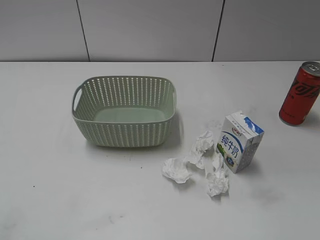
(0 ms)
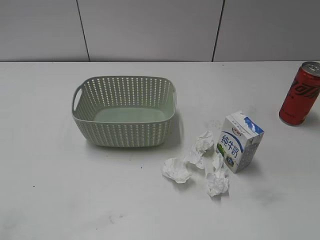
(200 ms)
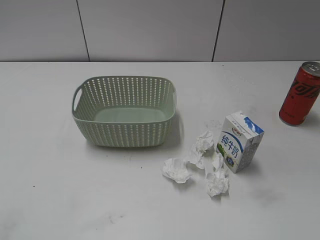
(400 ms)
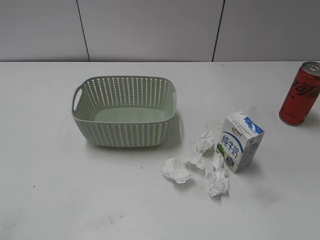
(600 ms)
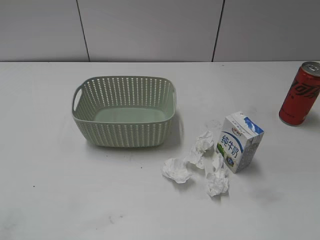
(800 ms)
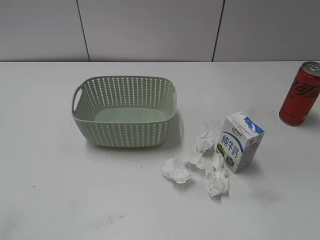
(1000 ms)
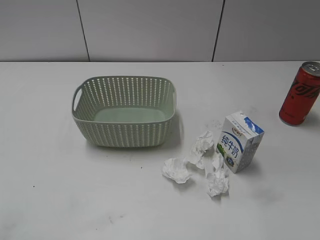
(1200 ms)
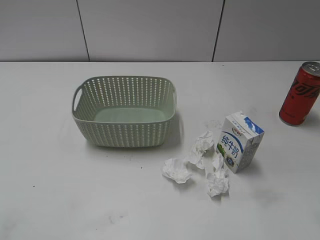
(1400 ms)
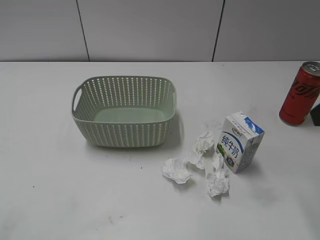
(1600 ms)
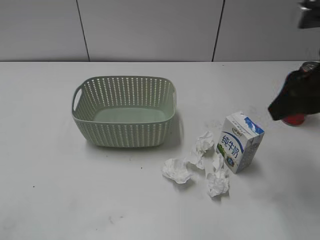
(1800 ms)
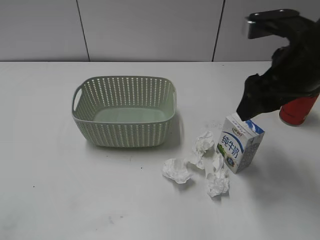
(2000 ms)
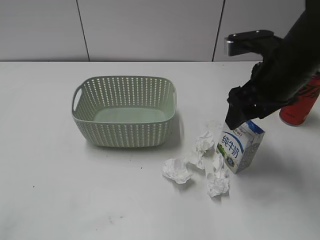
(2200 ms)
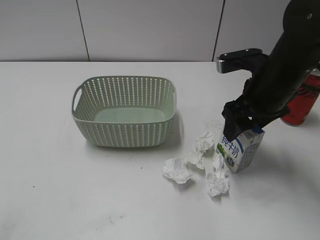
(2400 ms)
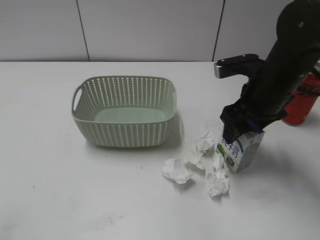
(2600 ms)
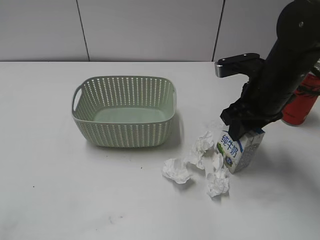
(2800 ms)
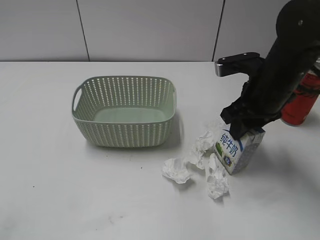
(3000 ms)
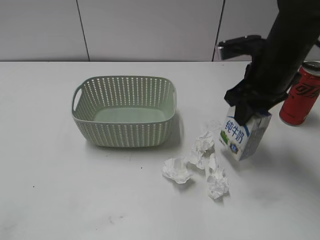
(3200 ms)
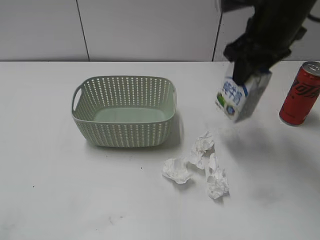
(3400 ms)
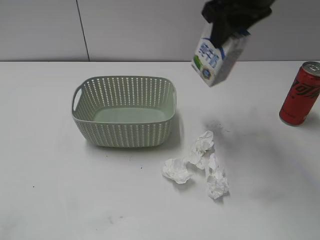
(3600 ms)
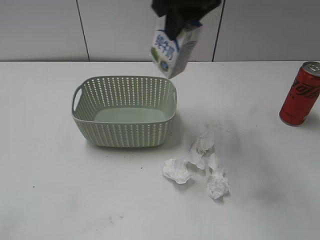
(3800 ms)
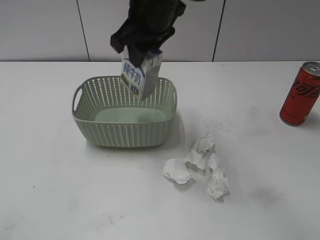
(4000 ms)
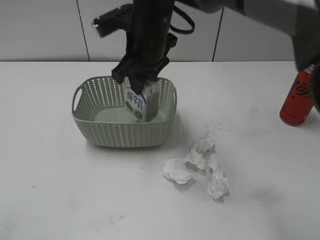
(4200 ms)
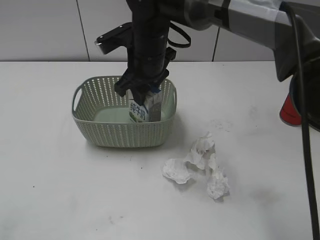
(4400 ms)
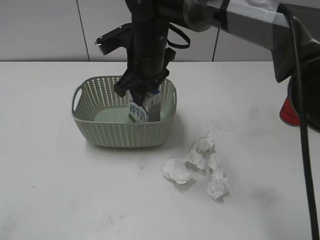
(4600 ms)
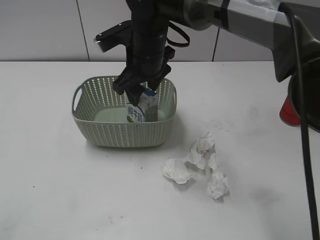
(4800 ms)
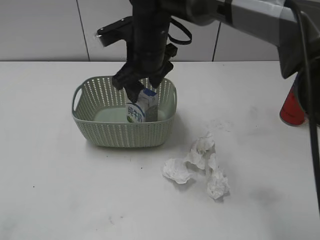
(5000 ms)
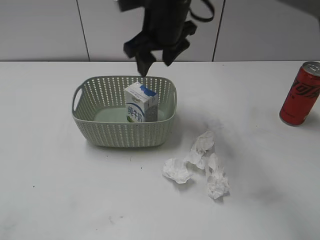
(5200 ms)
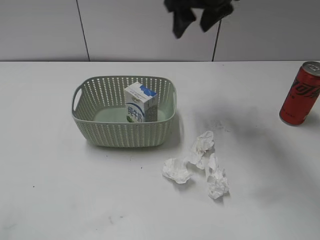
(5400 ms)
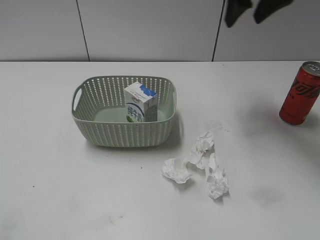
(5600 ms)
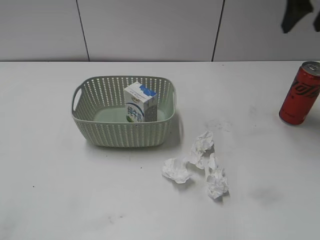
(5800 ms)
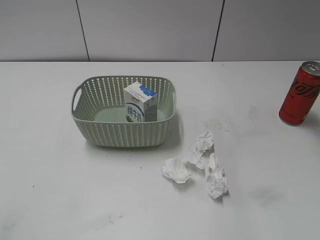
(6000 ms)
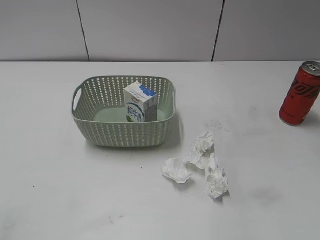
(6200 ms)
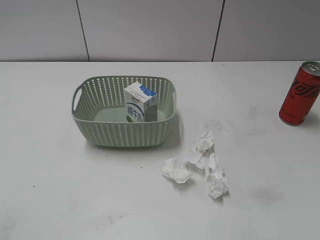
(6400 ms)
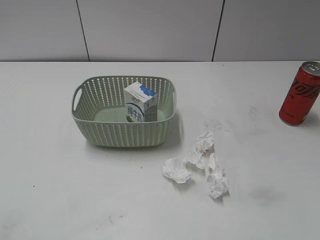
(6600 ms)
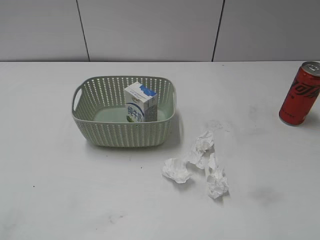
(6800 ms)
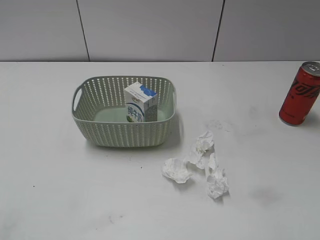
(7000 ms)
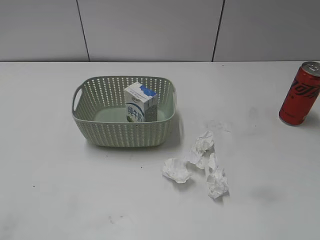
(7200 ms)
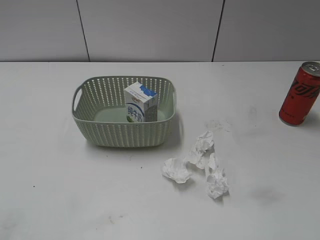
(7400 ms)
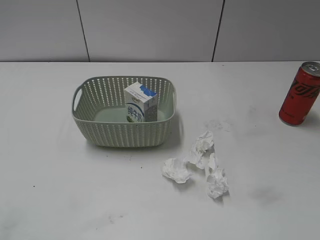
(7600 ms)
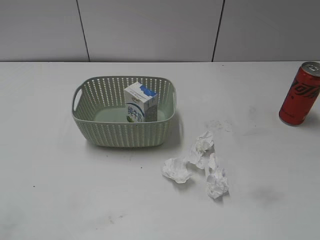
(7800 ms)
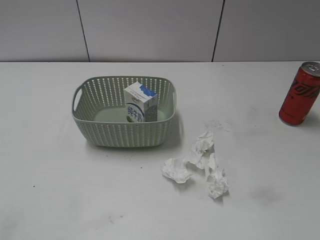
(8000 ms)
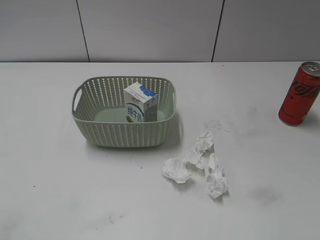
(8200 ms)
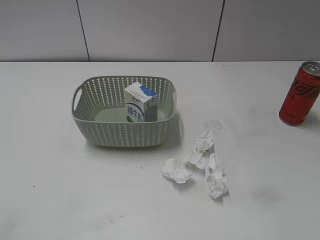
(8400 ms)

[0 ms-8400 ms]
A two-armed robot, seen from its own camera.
Step, 1600 ms to 2800 ms: Grasp the milk with right gripper.
Step, 3000 ms to 5200 ms: Place the milk in the basket with right gripper.
1400 ms to 2800 ms: The right gripper shifts approximately 25 cm forward, downward and to the left, and closes its fingers.
2800 ms to 4200 ms: The right gripper goes approximately 20 cm to the left.
4200 ms to 5600 ms: The right gripper is displaced to the right and upward by approximately 20 cm, and opens its fingers.
5600 ms to 7000 ms: The right gripper moves backward and to the right, some 35 cm.
